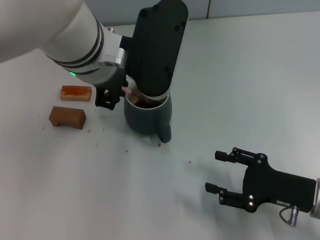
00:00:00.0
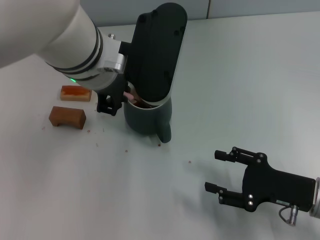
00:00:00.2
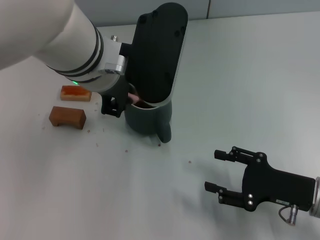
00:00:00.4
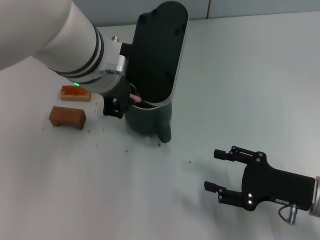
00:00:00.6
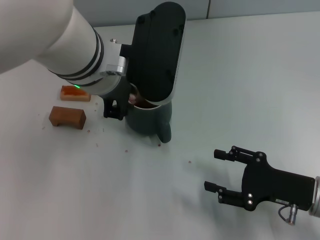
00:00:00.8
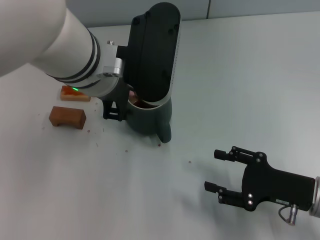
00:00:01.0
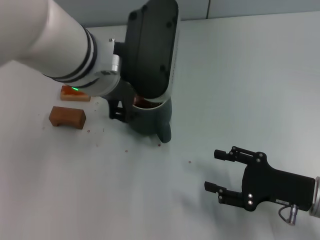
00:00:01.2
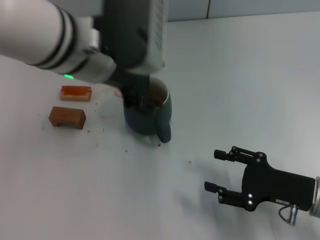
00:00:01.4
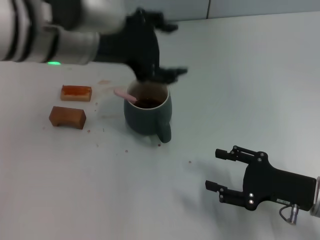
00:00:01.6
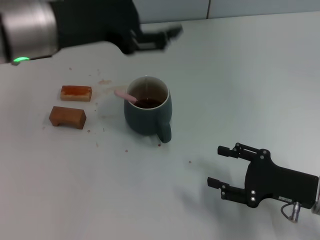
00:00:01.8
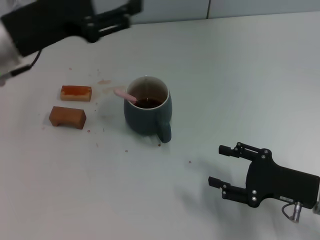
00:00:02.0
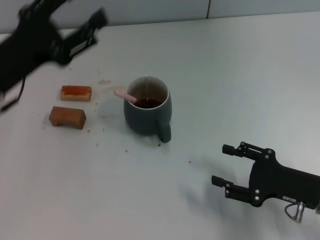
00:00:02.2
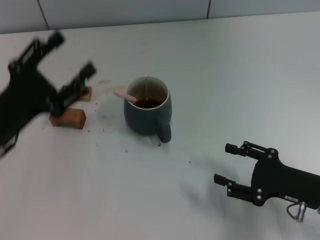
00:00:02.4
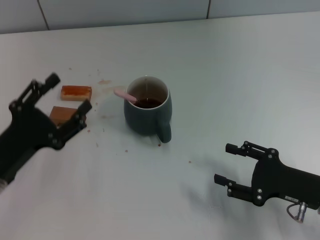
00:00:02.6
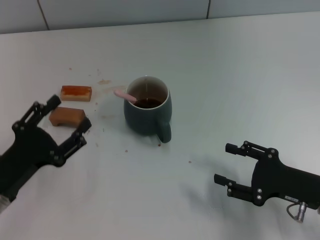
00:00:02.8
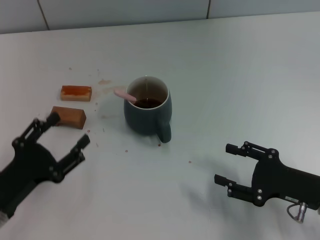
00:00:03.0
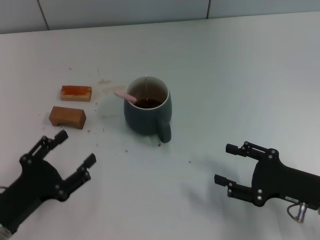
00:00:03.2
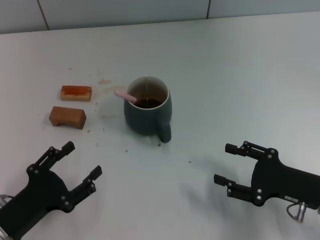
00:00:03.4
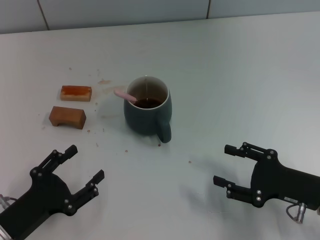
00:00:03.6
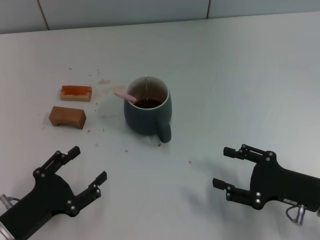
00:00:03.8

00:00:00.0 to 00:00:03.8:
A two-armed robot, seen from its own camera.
Task of the whole recording: Move the grey cup to the center, lift the pink spoon, stir it three times in the cup, and put the spoon into the cup.
00:00:00.0 to 00:00:01.2: The grippers move only a little.
00:00:01.2 to 00:00:02.6: The left gripper goes some 25 cm to the left, downward and backward, and opens its fingers.
00:00:02.6 to 00:00:03.8: The left gripper moves backward, approximately 5 cm.
